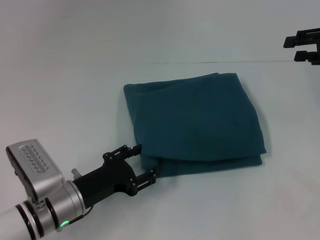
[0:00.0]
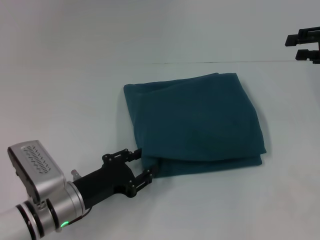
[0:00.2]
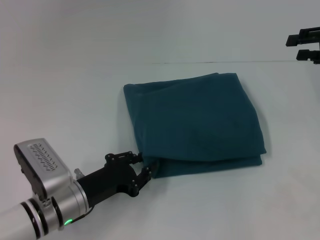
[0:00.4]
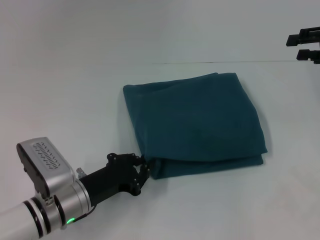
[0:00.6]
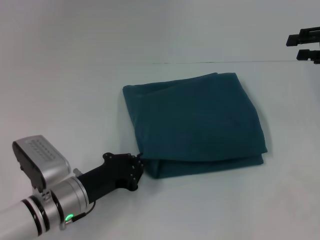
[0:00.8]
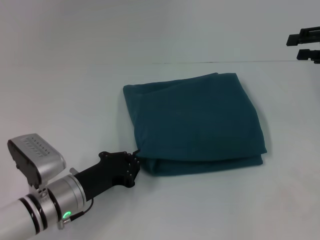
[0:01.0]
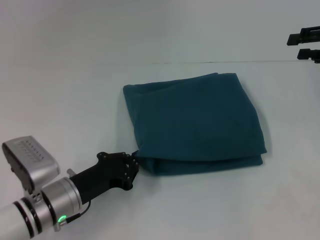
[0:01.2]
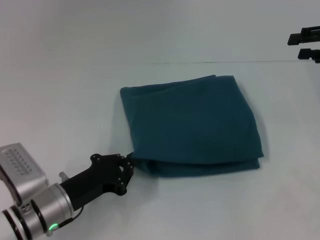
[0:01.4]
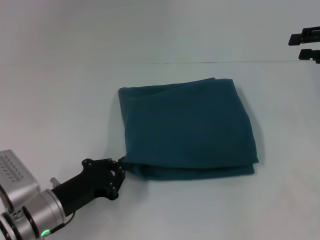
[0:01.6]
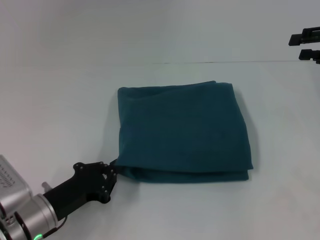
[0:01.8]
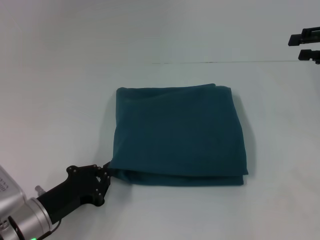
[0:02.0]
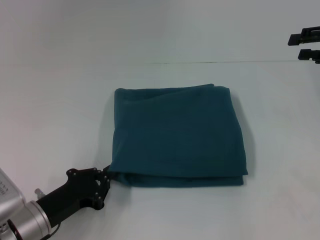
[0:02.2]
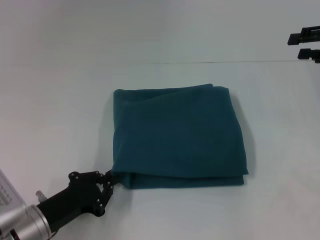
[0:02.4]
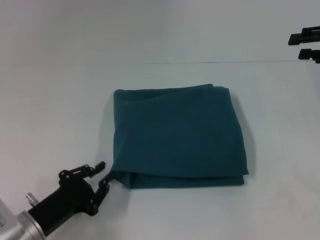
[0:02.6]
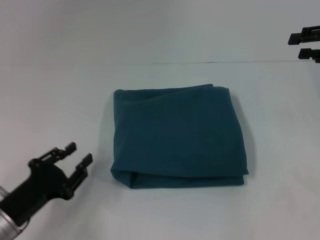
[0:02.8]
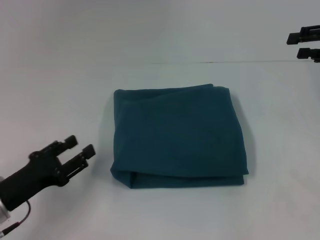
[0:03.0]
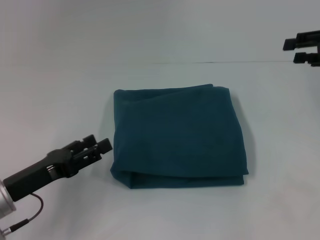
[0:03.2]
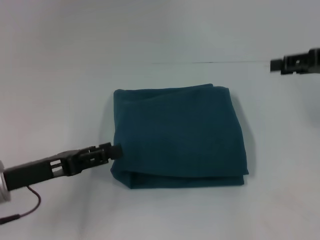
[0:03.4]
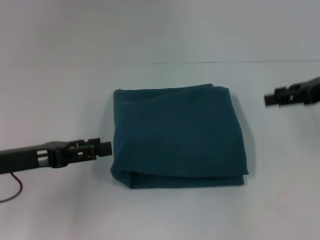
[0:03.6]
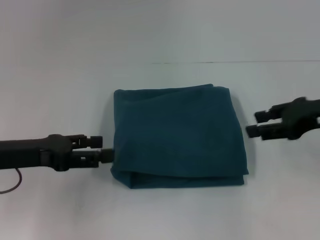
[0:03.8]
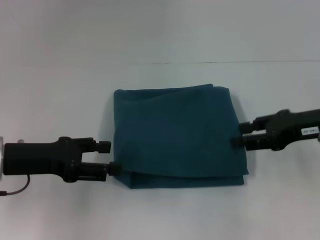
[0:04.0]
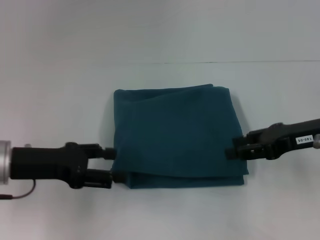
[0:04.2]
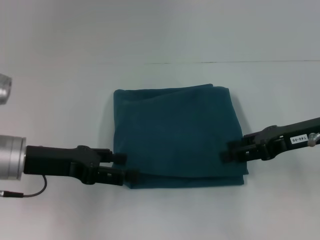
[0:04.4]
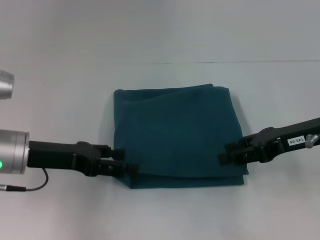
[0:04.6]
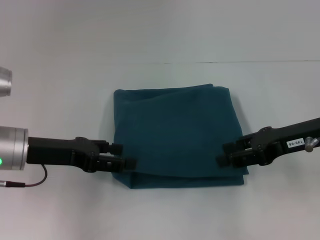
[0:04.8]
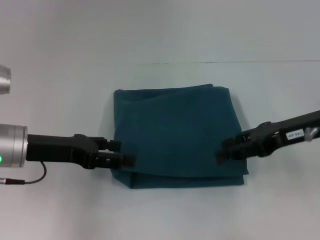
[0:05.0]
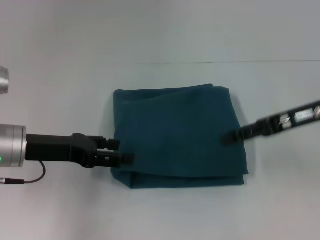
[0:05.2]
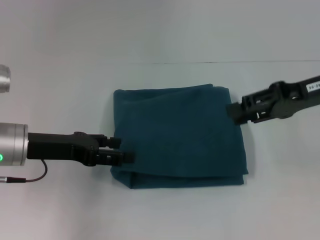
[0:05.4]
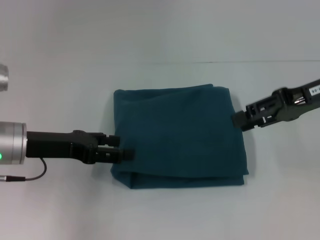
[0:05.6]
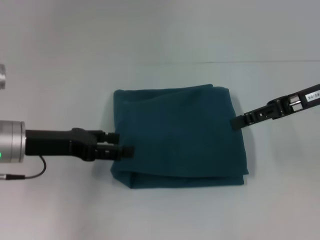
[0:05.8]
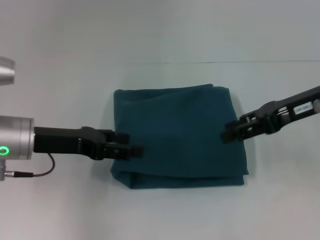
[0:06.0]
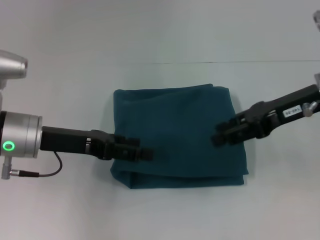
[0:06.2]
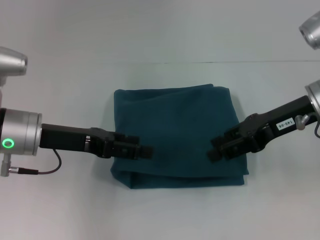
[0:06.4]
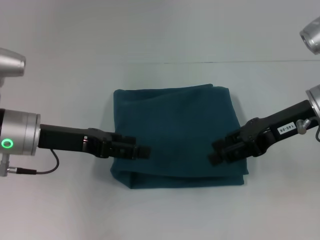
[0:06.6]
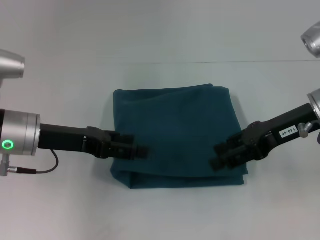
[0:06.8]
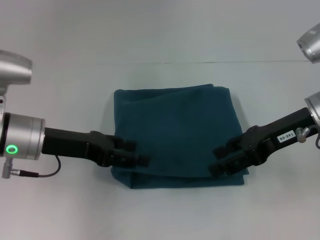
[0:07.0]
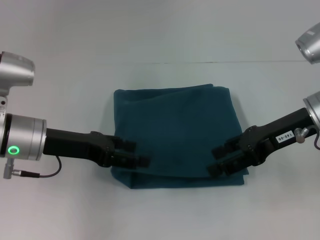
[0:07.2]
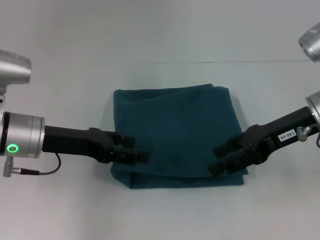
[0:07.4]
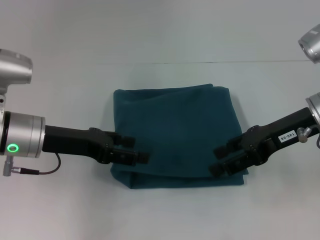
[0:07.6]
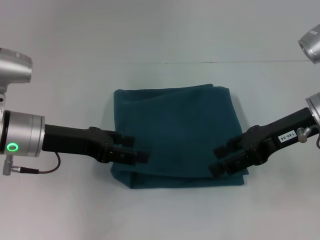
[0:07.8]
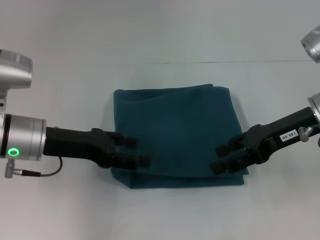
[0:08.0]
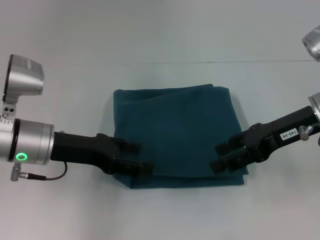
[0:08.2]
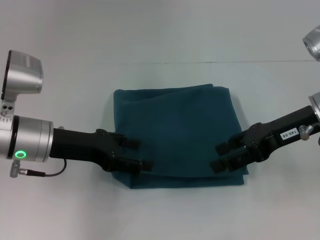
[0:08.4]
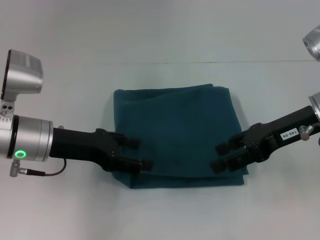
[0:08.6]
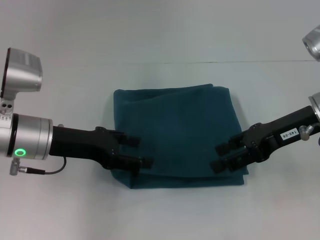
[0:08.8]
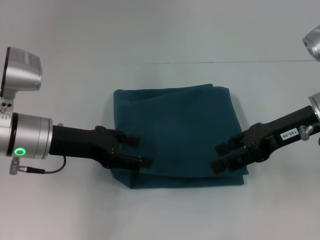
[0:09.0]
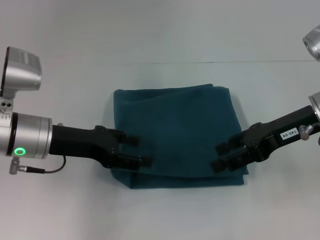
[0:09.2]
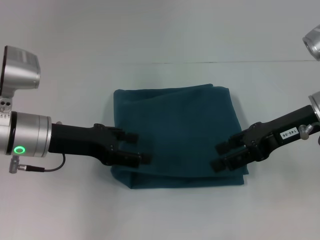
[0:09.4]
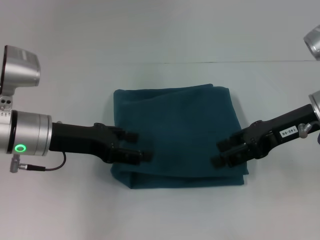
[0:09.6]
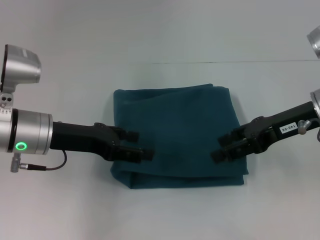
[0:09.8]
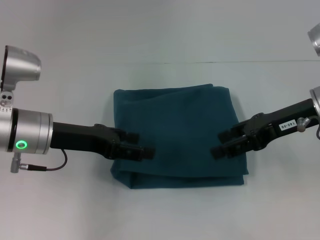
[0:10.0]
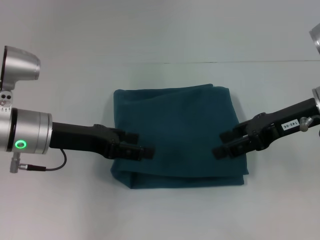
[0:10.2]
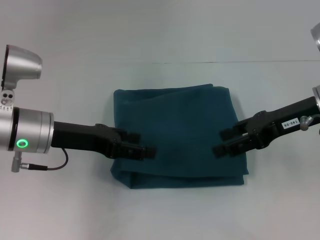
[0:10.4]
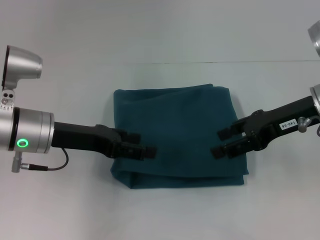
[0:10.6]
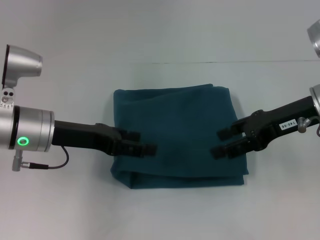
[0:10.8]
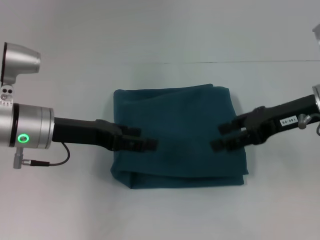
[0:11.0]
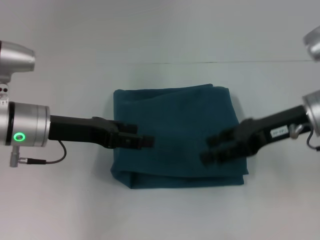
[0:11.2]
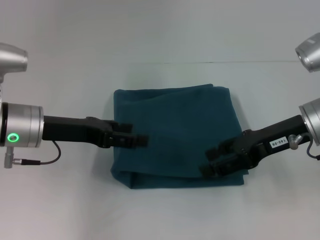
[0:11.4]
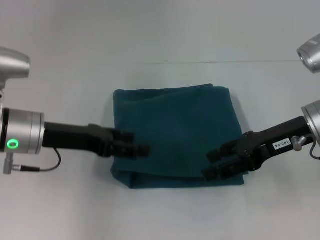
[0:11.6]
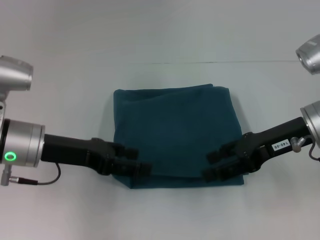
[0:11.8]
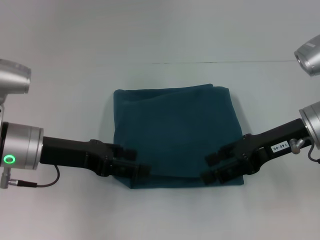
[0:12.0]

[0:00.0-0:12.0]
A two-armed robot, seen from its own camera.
0:00.0 to 0:01.6: The left gripper closes up.
0:01.6 to 0:03.0: The left gripper shifts approximately 5 cm to the left, and opens its fingers.
0:03.0 to 0:04.4: The right gripper heads to the left, backward and downward, covering approximately 15 cm; the left gripper travels upward and forward by some 10 cm, and opens up.
0:04.4 to 0:06.0: The right gripper moves about 5 cm.
0:06.0 to 0:12.0: The grippers move only a little.

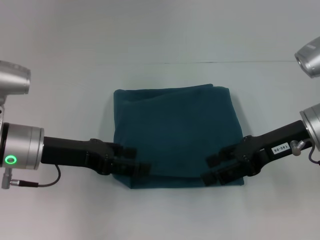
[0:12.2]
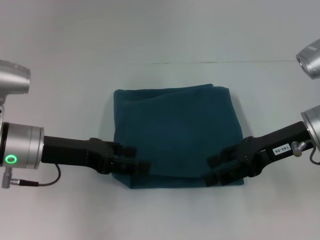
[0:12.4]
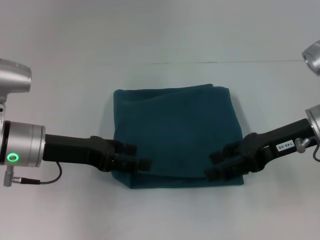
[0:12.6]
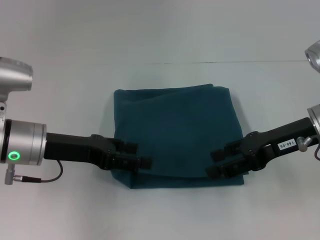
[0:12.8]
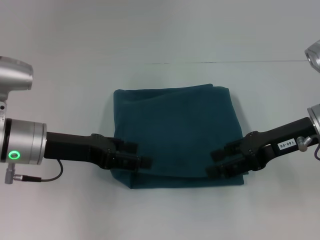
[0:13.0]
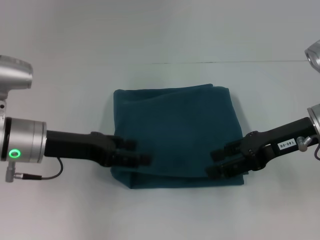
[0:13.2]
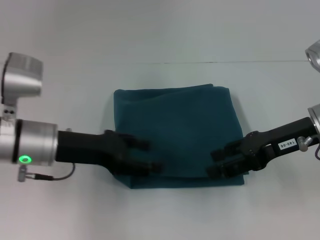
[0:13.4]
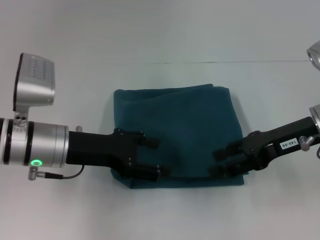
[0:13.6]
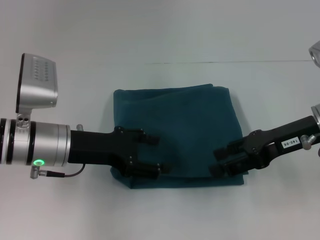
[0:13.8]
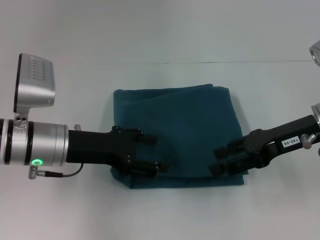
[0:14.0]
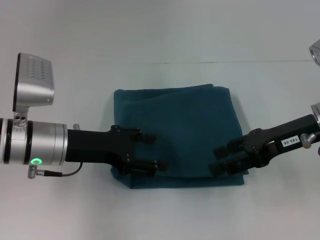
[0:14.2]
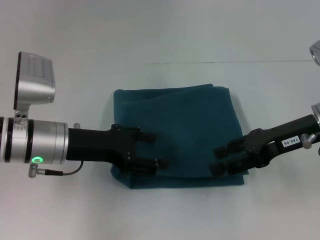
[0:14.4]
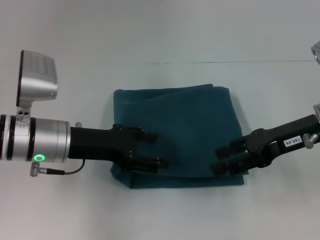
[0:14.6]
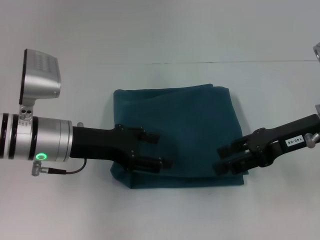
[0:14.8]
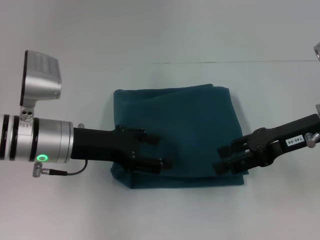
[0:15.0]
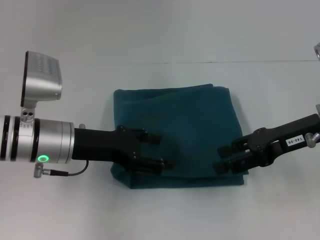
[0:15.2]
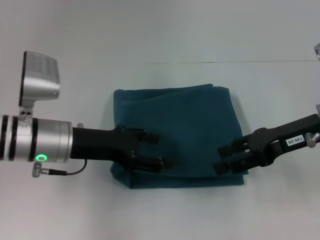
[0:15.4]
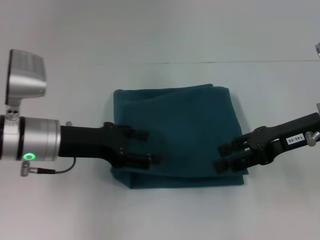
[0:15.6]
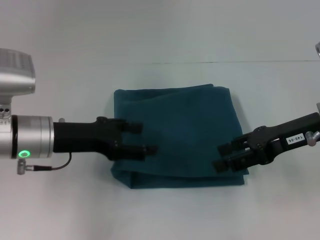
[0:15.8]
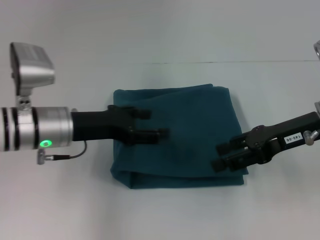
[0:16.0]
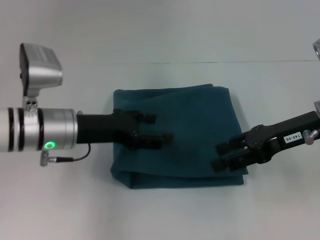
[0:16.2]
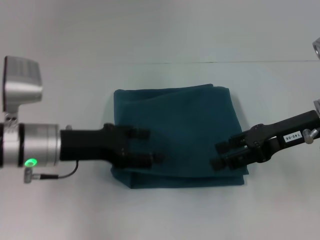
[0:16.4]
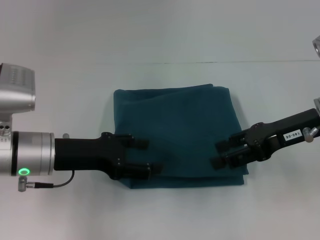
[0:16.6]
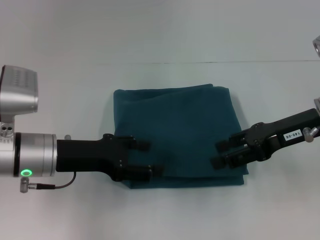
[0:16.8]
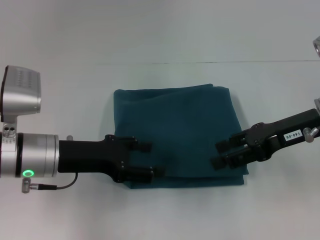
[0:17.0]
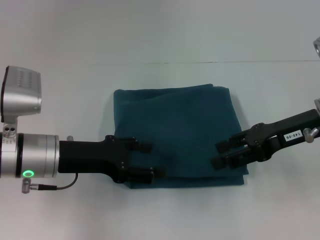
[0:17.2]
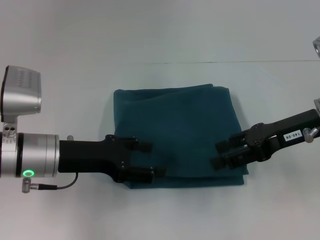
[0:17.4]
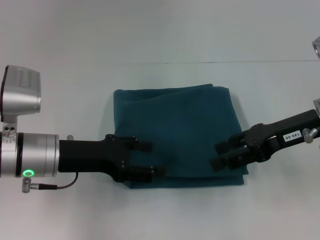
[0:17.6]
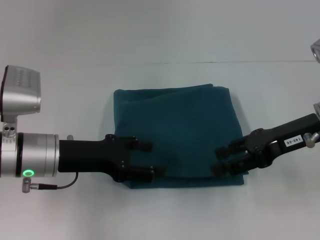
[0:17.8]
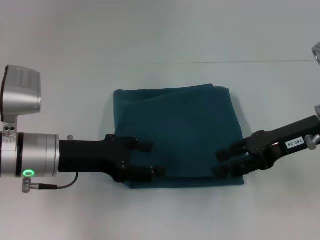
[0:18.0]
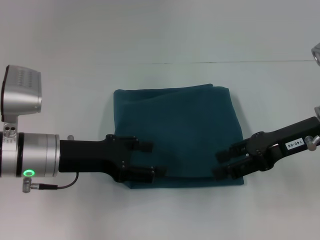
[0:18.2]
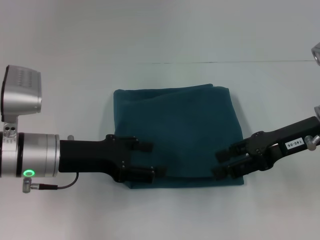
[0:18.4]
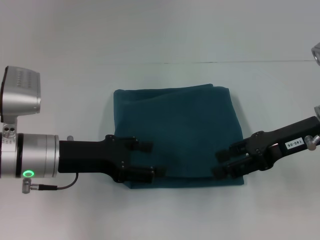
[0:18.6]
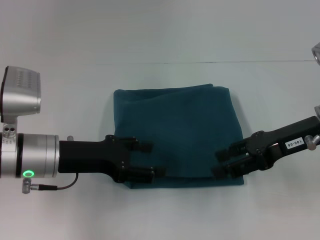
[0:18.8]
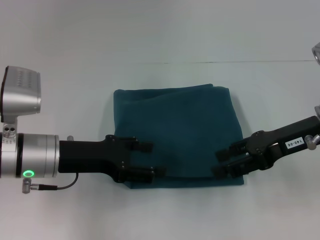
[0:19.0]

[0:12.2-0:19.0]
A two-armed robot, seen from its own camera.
0:12.2 to 0:13.6: There are only small adjustments of the grippers.
0:13.6 to 0:15.0: The two grippers keep their place.
0:15.0 to 0:17.6: The grippers stay close to where they were, moving slightly.
0:17.6 to 0:19.0: Neither gripper changes place.
